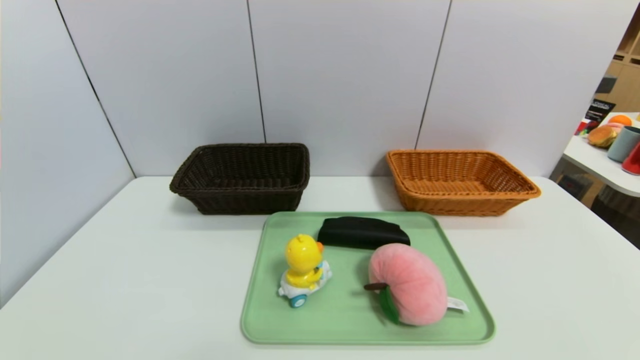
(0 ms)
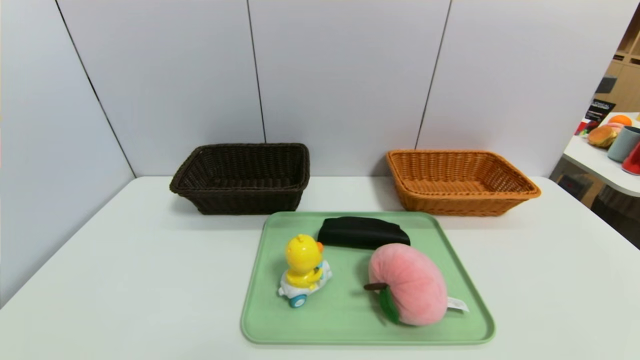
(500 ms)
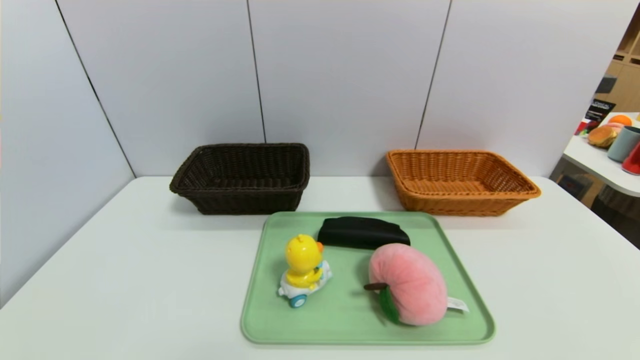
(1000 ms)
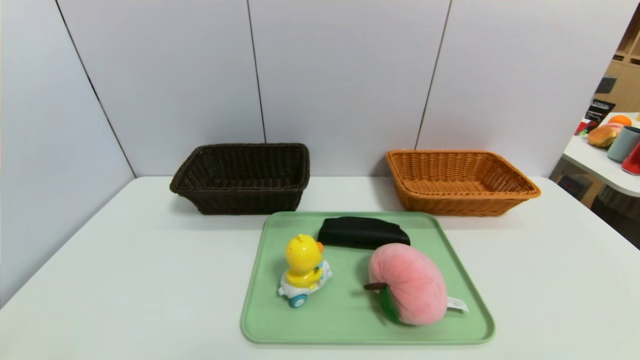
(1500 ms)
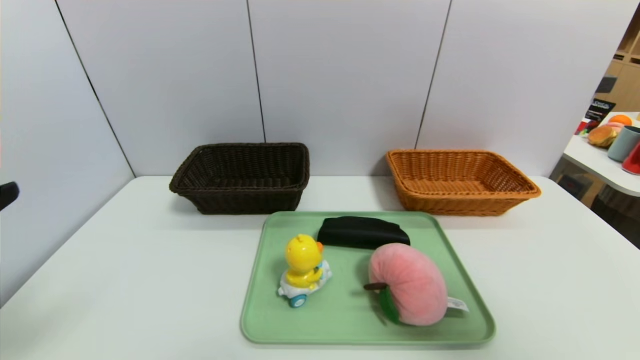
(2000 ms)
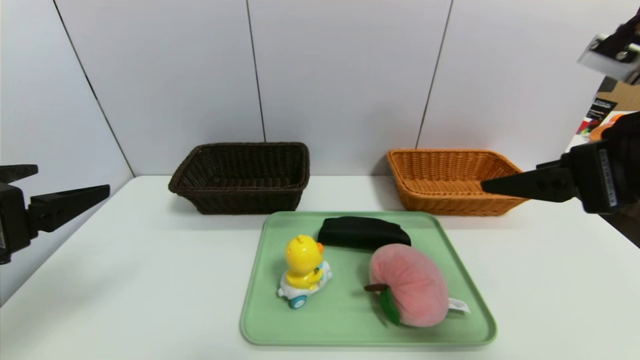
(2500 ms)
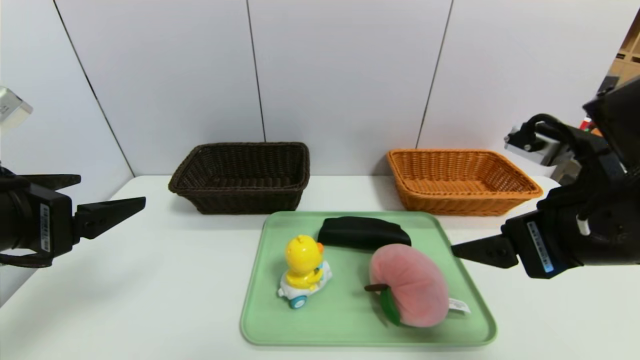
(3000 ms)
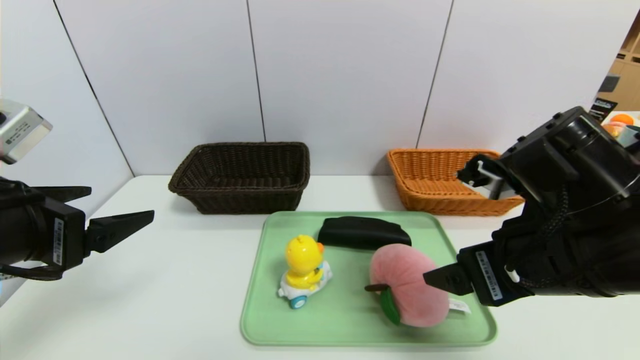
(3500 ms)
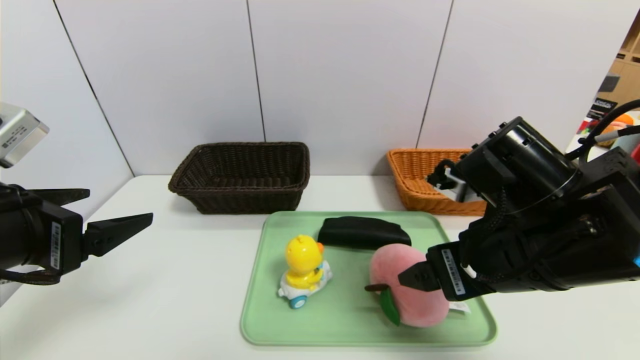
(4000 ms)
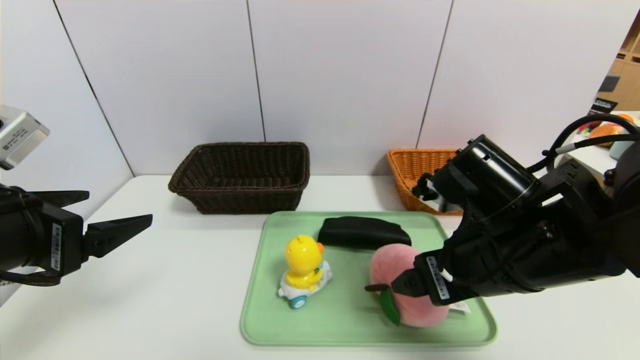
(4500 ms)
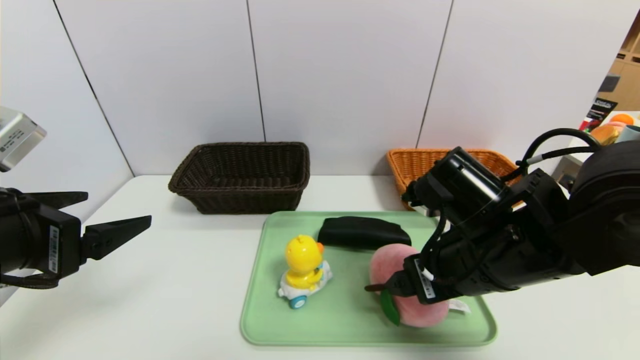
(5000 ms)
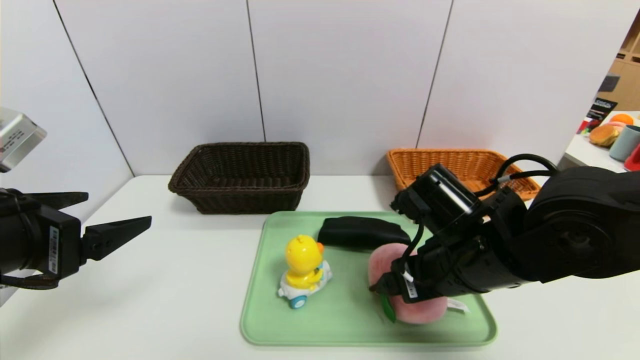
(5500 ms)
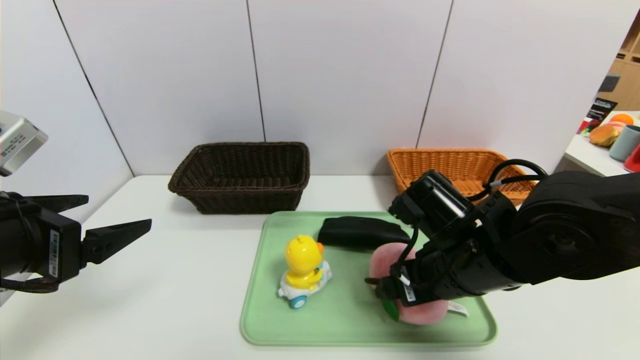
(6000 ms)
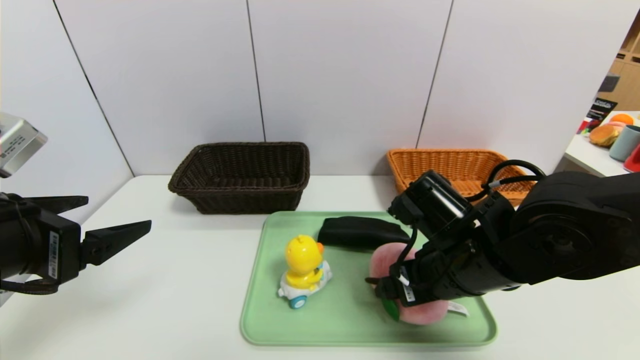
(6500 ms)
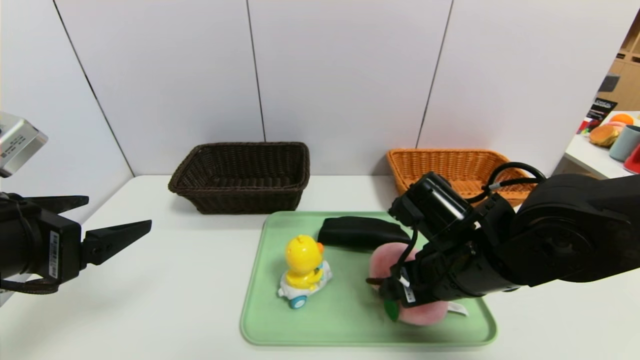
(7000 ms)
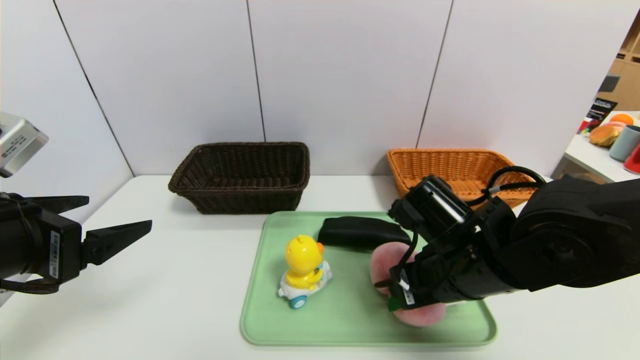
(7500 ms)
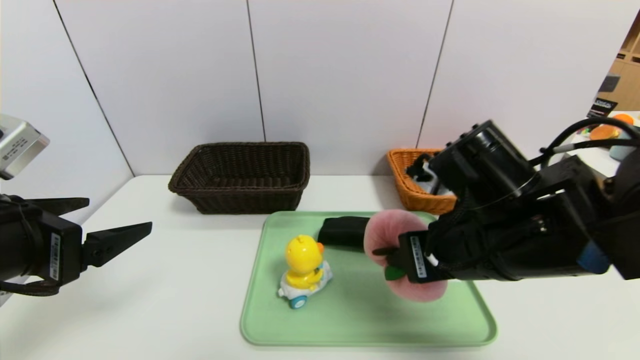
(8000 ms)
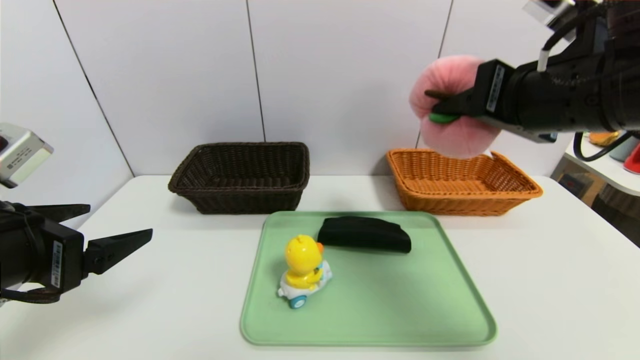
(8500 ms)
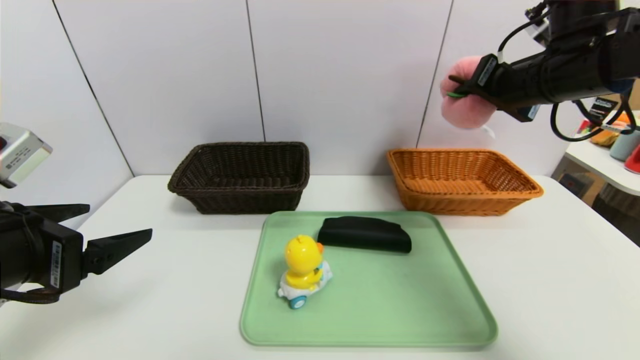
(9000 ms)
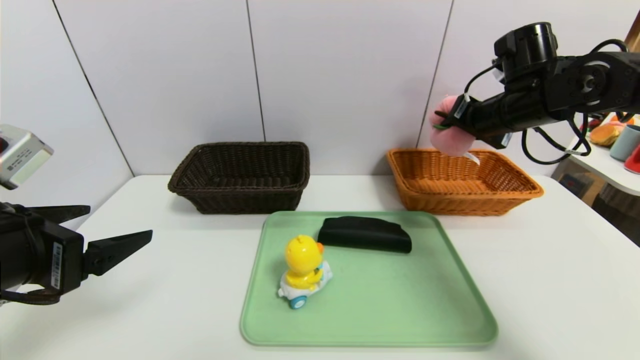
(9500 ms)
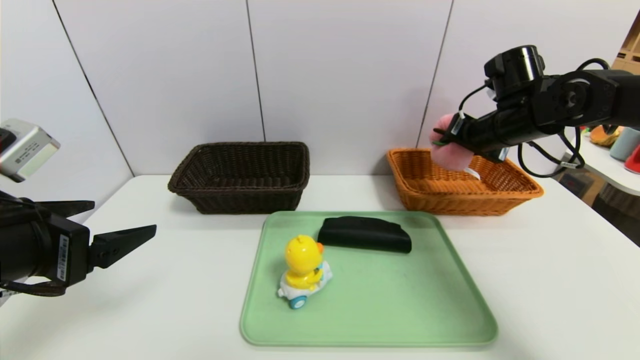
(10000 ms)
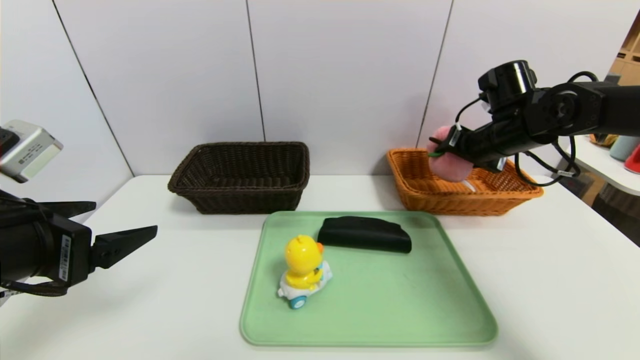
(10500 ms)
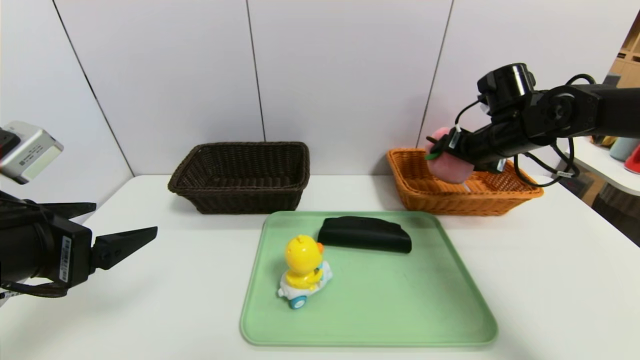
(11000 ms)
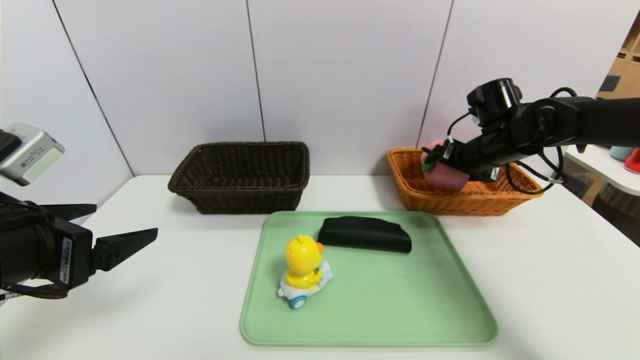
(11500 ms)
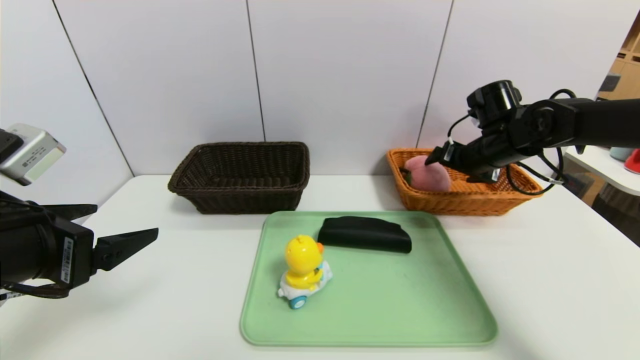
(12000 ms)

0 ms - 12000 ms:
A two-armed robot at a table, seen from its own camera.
Task of the whole recording: place the food in the right basket with the right gripper, and place the non food items in the left basket with the left gripper.
0 ms - 2000 ms: The grippers both shift upward by roughly 25 cm.
2000 ms - 4000 ms: The left gripper travels forward by some 10 cm, while the right gripper moves to the left, downward and forward, approximately 25 cm.
4000 ms - 6000 ms: The right gripper heads downward, covering roughly 5 cm.
6000 ms - 8000 ms: The right gripper is displaced upward by some 5 cm, and closes.
8000 ms - 10000 ms: The right gripper moves forward and to the right, some 25 cm.
10000 ms - 12000 ms: The right gripper opens its fingers.

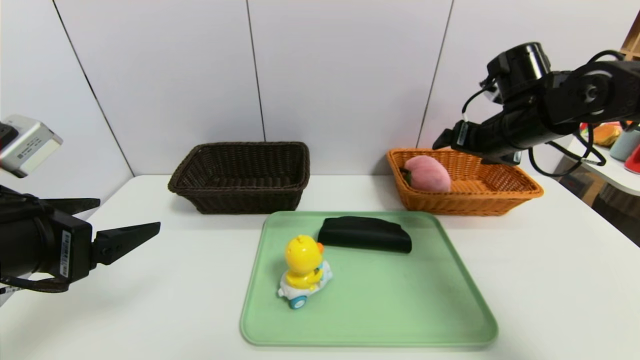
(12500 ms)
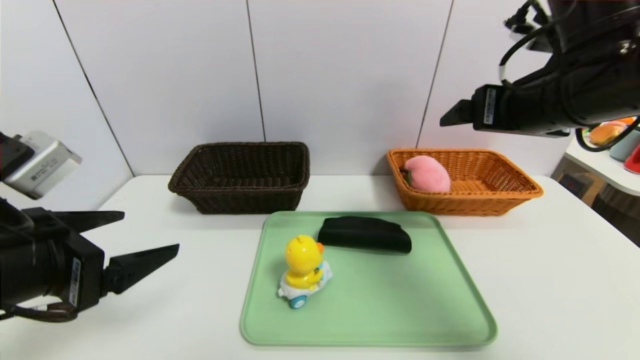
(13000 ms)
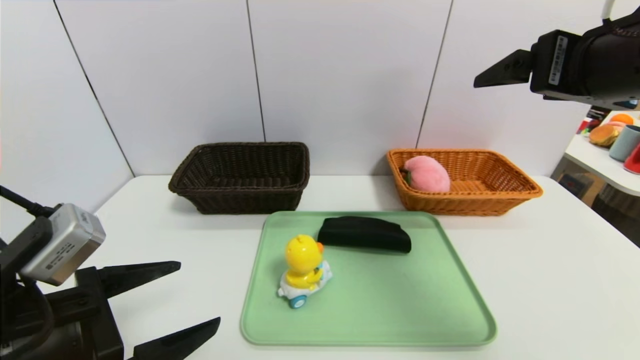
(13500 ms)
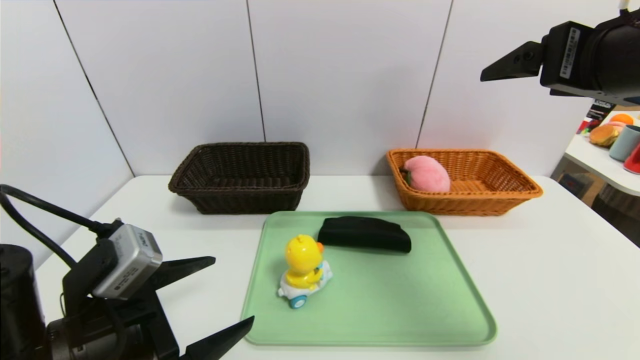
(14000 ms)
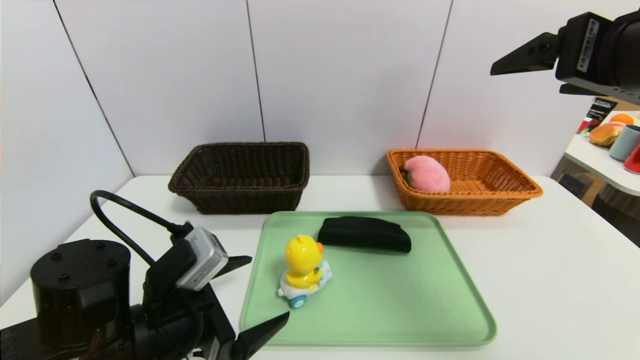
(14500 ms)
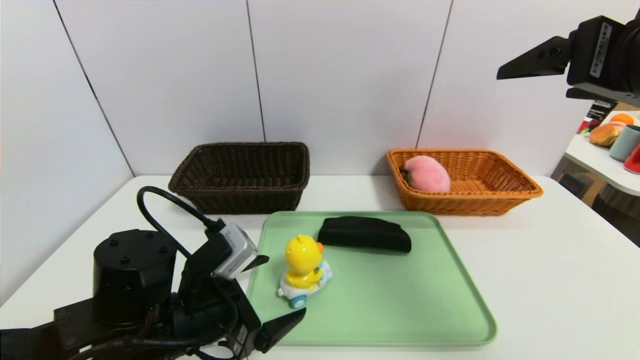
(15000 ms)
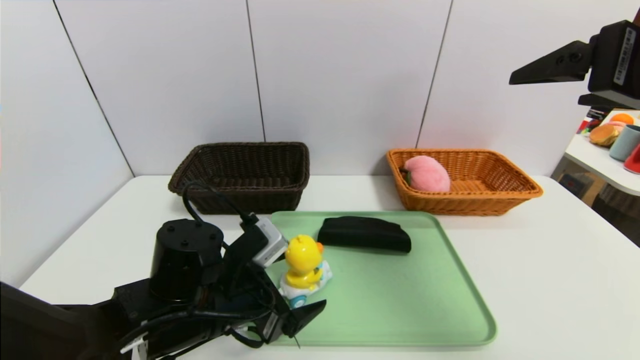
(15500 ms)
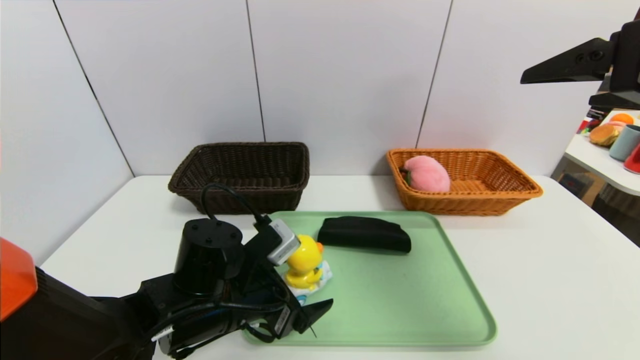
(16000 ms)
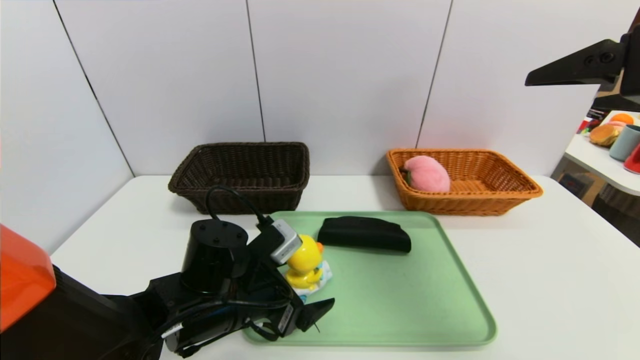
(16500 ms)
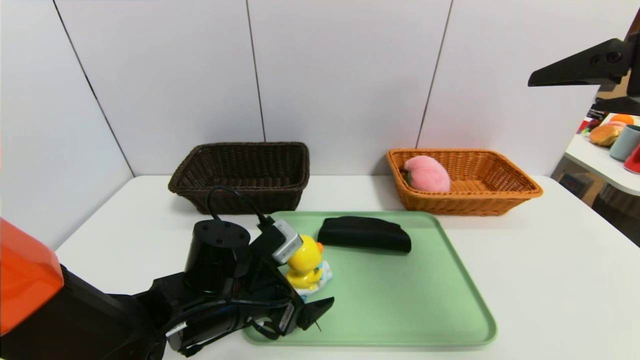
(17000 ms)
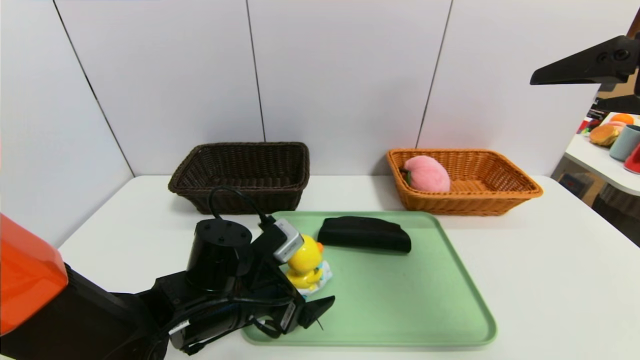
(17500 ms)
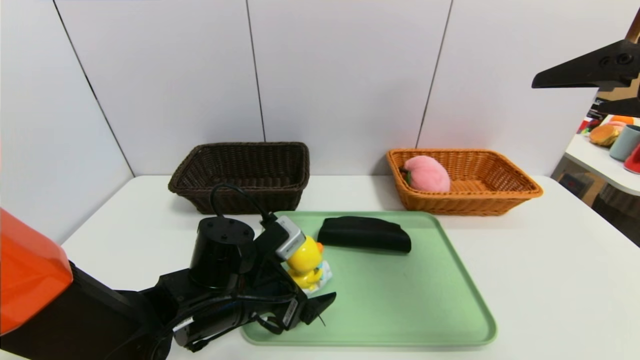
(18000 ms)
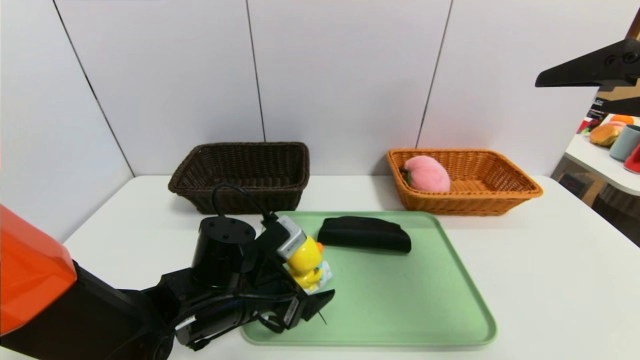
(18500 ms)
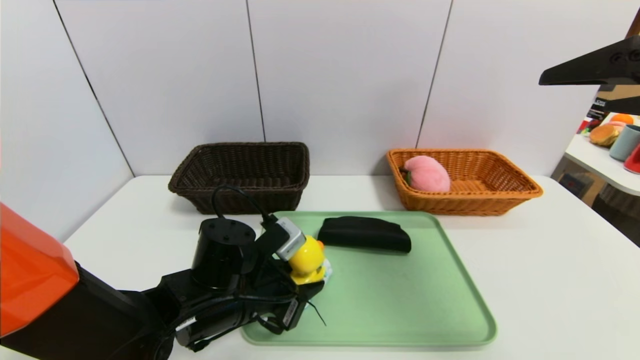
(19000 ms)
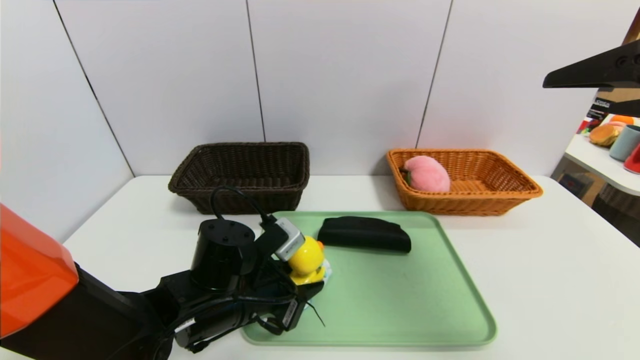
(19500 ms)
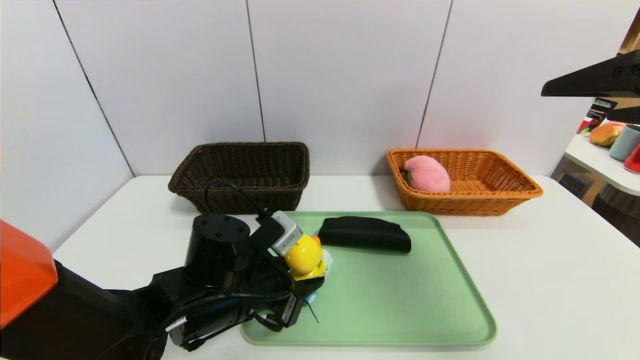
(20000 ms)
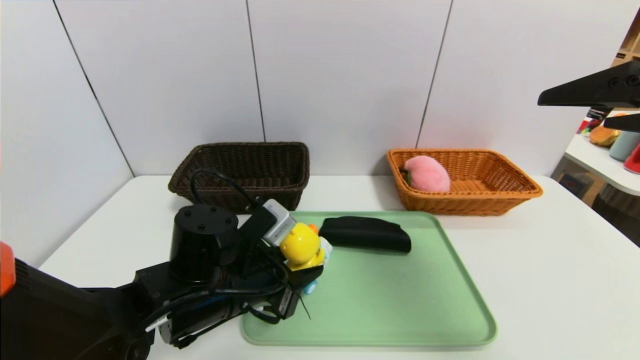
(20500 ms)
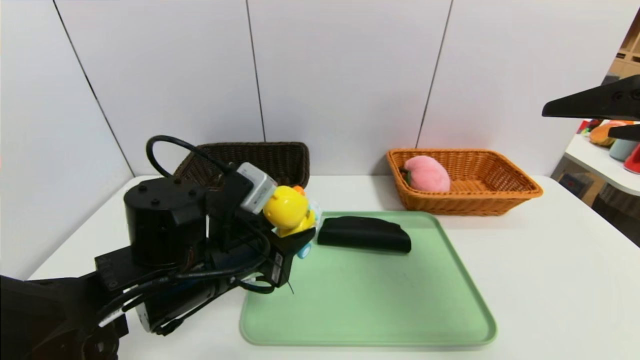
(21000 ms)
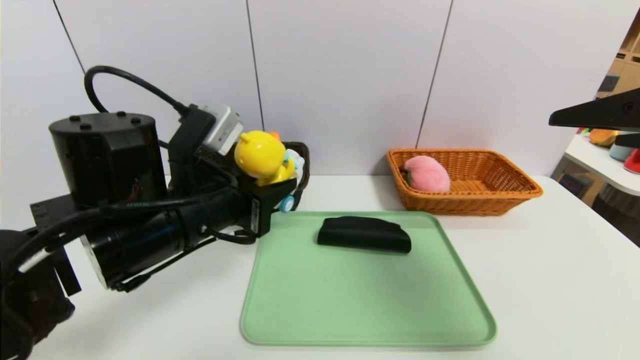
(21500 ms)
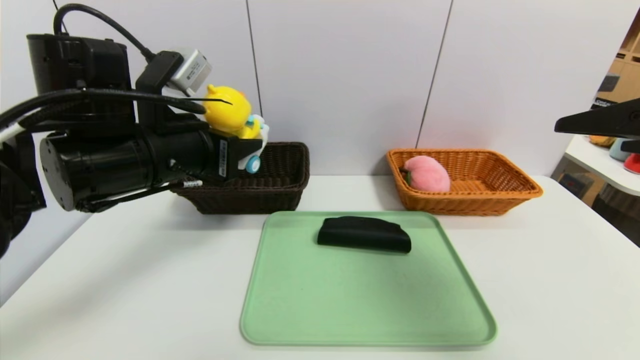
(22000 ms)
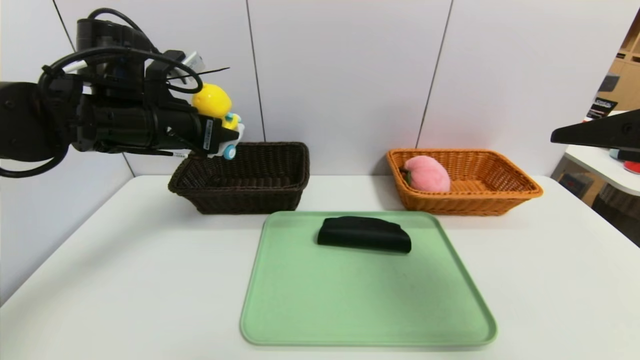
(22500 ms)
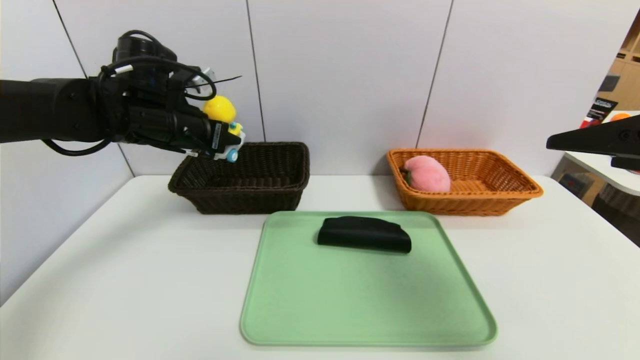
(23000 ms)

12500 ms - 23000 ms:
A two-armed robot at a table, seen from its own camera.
Task of the whole recording: place the food in the right basket with the right gripper, and place the non food items in the left basket with the left gripper.
12500 ms - 14500 ms: The right gripper shifts some 20 cm backward and upward. Meanwhile the left gripper shifts approximately 15 cm downward and to the right.
14500 ms - 16500 ms: The left gripper moves to the right and forward, some 10 cm.
16500 ms - 19000 ms: The left gripper closes.
19000 ms - 21000 ms: The left gripper is displaced upward by about 5 cm.
21000 ms - 23000 ms: The left gripper heads forward, to the left and upward, covering some 20 cm.
